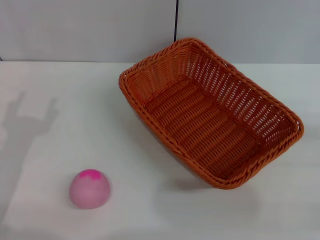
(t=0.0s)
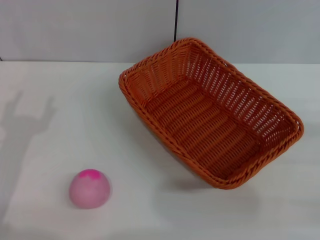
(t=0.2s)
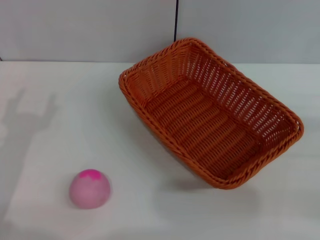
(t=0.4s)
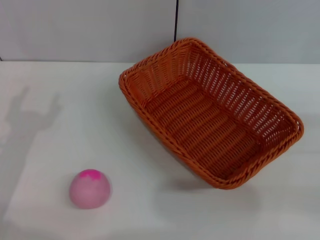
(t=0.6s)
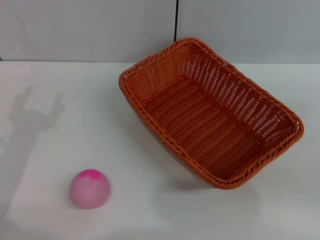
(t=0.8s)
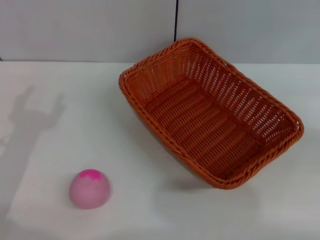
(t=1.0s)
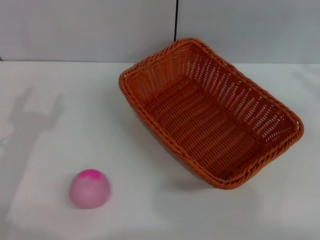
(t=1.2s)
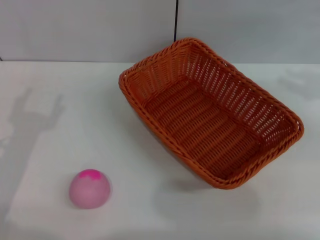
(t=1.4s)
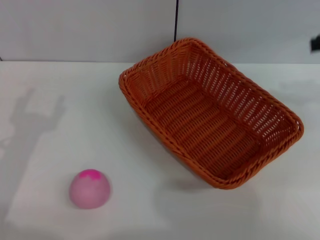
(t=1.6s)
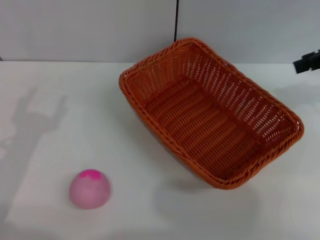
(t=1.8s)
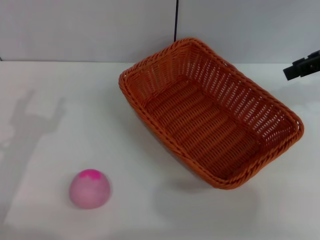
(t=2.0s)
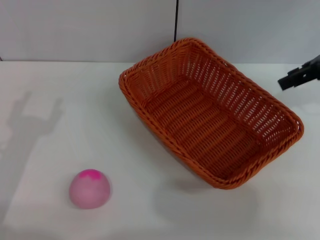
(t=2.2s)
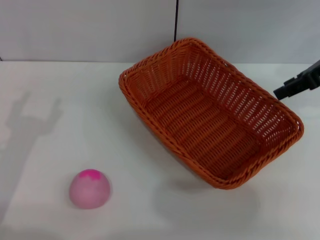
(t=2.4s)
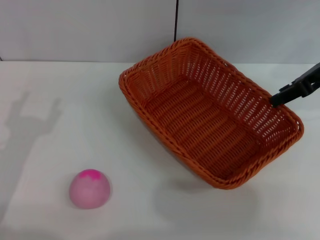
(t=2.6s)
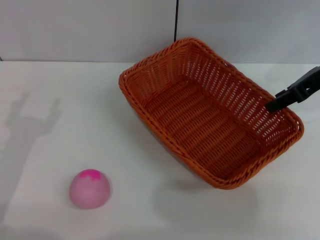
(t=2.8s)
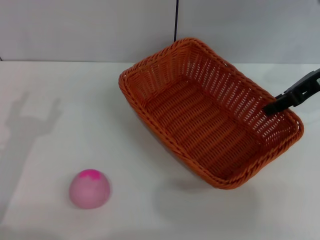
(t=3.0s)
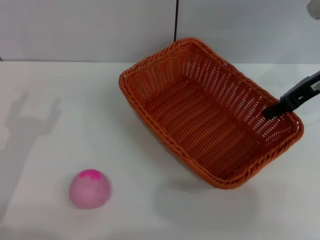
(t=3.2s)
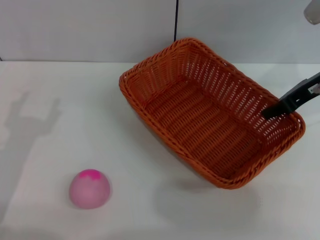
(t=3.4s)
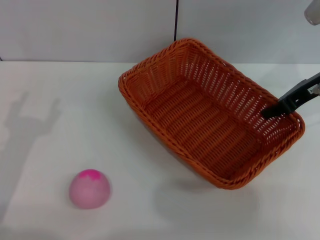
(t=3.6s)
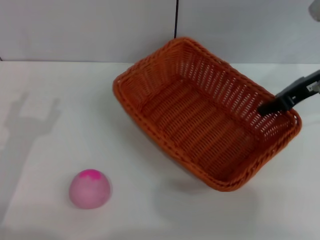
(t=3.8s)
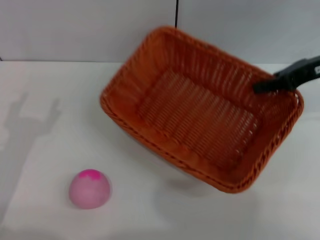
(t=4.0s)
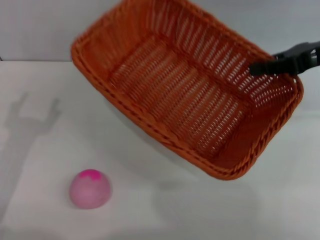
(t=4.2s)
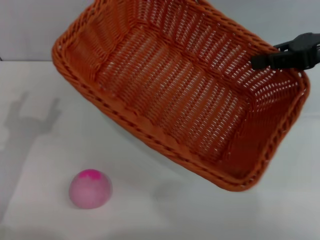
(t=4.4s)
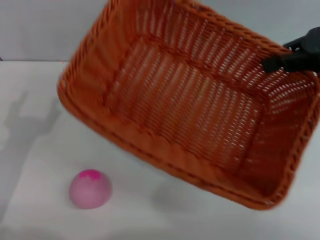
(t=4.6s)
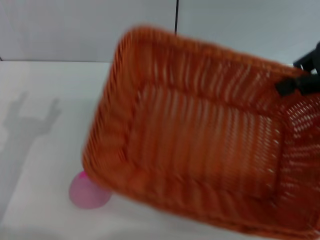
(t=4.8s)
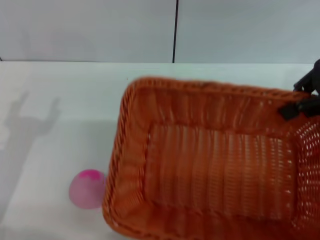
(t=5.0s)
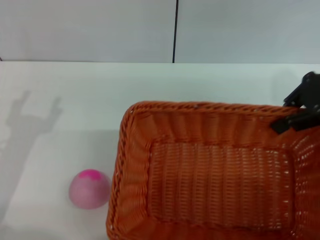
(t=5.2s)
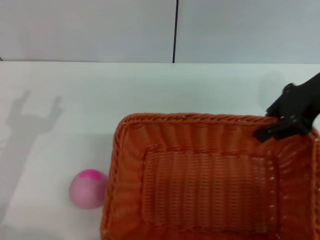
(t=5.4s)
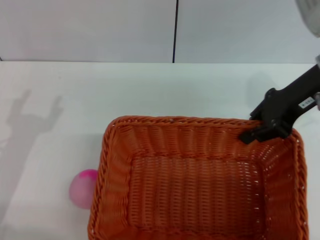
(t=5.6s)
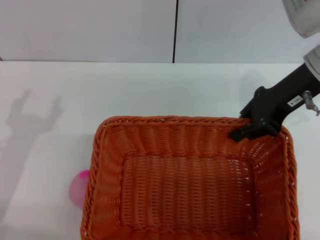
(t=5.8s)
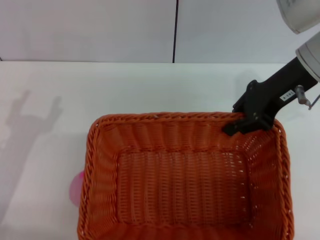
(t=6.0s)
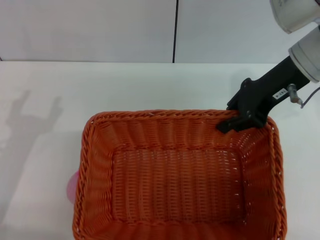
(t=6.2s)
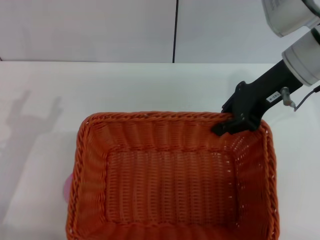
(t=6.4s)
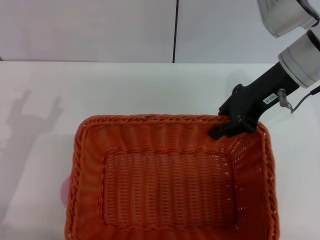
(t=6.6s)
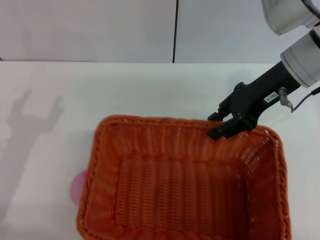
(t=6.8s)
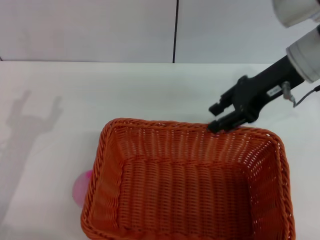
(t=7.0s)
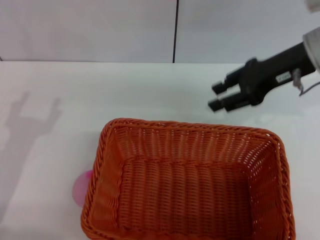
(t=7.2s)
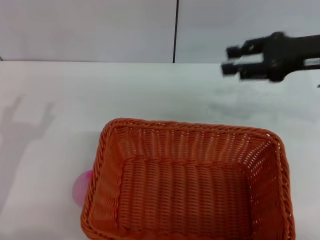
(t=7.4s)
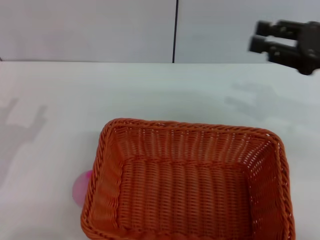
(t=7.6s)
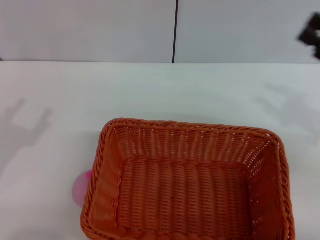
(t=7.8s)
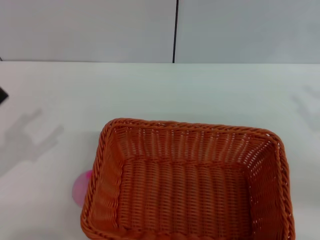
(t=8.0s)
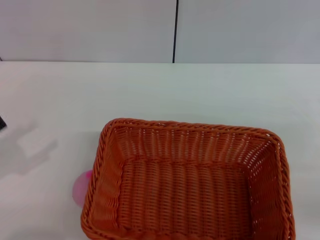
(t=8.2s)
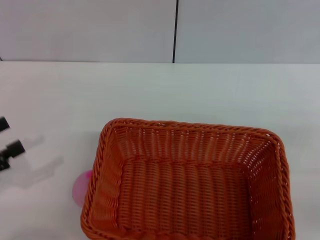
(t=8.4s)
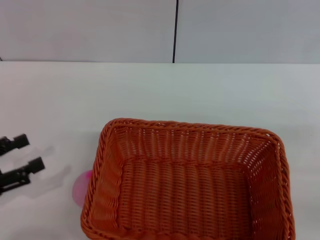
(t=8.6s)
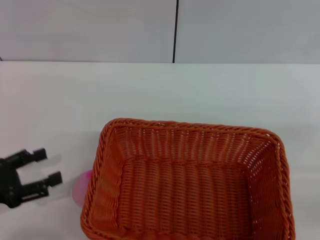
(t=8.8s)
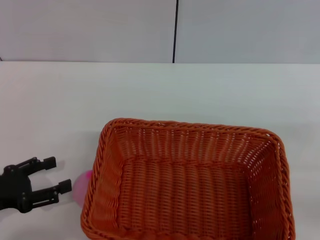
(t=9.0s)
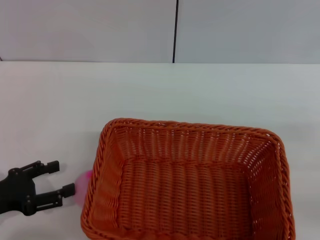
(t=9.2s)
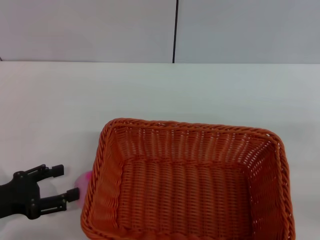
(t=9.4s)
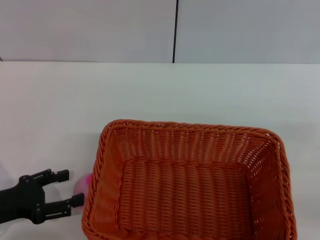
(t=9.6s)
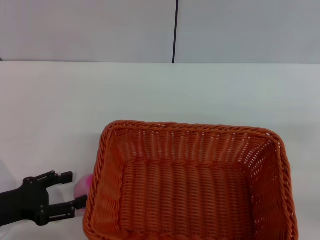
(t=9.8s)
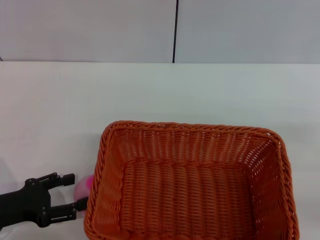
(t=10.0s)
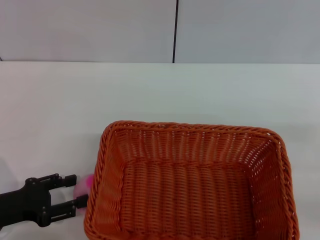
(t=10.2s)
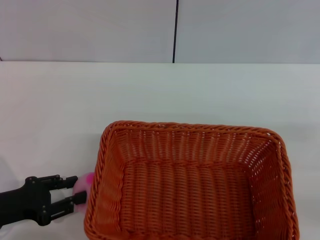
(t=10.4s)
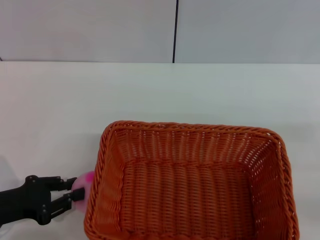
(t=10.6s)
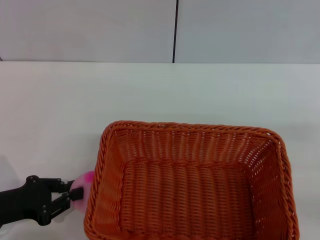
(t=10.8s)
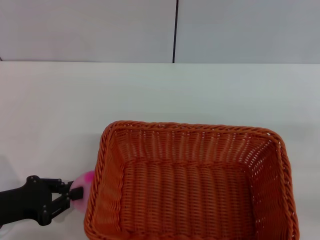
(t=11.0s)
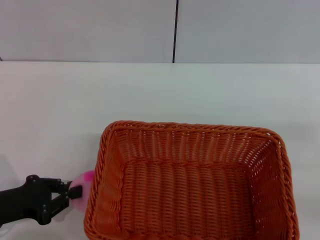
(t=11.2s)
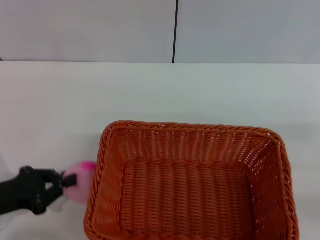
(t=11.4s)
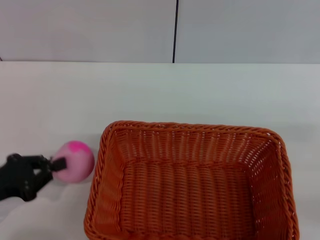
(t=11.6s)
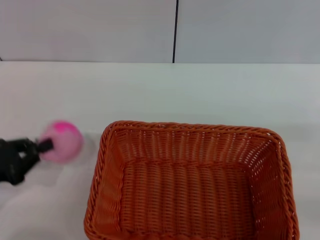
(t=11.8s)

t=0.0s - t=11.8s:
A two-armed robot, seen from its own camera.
Step, t=0.0s - t=3.8s: Pick up the light basket with the right gripper.
Step, t=4.0s - t=7.2s: Place the light basket in the center of view with the right gripper.
t=1.4s - t=3.0s: The right gripper goes approximately 15 cm to the left, forward and downward.
t=3.0s - t=4.4s: The right gripper shifts by roughly 5 cm, and closes up.
t=4.4s - t=6.0s: The right gripper moves to the left, roughly 10 cm.
t=6.0s - t=7.4s: The right gripper shifts some 5 cm to the right, and opens its fingers.
t=7.4s - t=8.8s: The right gripper heads backward, to the right and downward, covering approximately 20 cm. Meanwhile the left gripper shifts roughly 5 cm to the left.
t=8.8s - t=10.4s: The grippers make only small movements.
t=10.4s - t=11.8s: The left gripper closes its fingers.

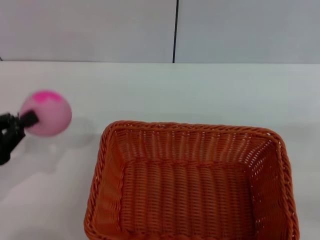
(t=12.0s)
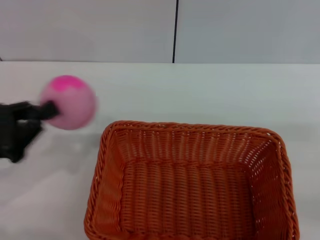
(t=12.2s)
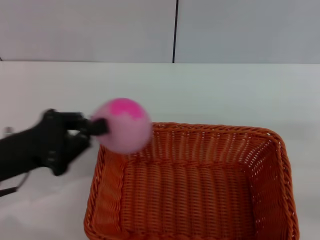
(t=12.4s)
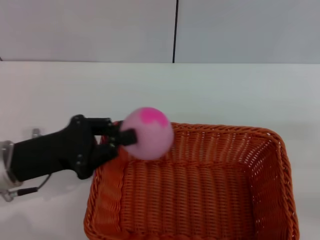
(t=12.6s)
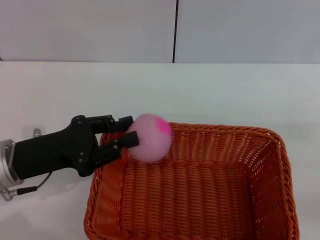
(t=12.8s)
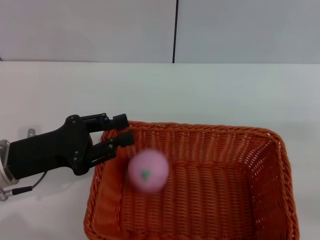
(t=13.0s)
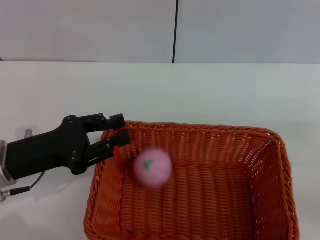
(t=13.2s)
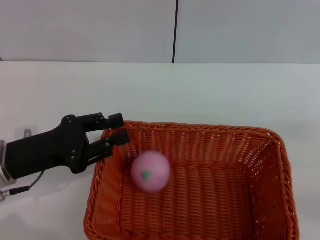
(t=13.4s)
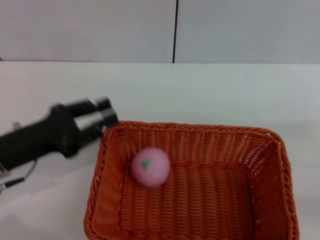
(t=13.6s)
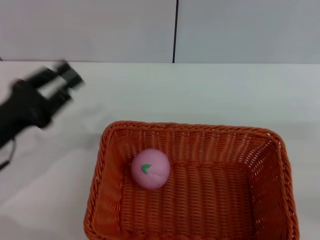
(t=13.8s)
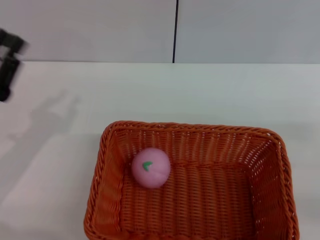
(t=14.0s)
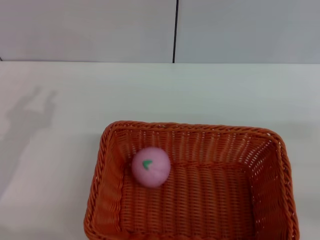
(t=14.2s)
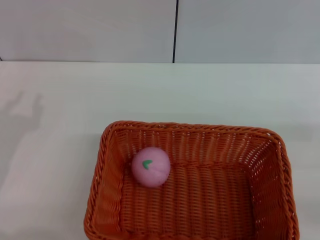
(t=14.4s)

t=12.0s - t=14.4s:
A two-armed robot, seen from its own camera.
Step, t=12.2s - t=13.4s: Place the peach into the basket with the left gripper.
t=12.0s - t=13.2s: The left gripper travels to the right by about 10 cm, and opens.
t=13.2s - t=14.4s: The left gripper is displaced to the left by some 5 cm.

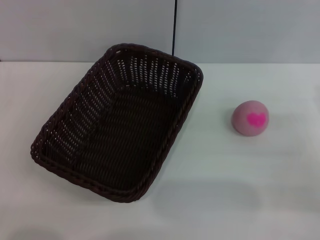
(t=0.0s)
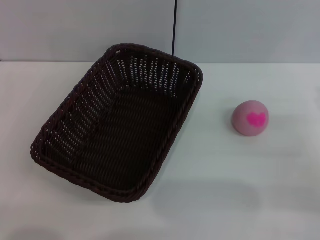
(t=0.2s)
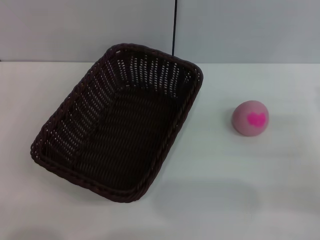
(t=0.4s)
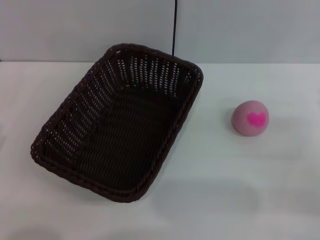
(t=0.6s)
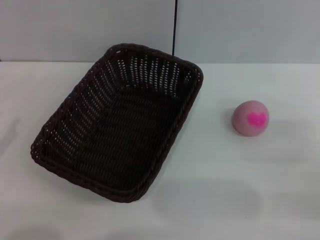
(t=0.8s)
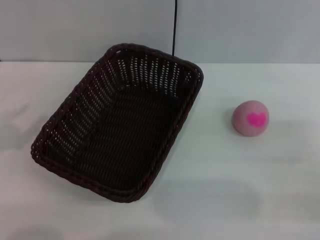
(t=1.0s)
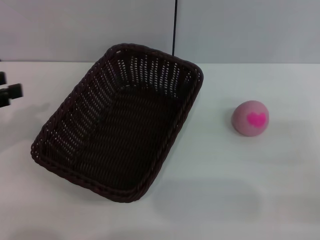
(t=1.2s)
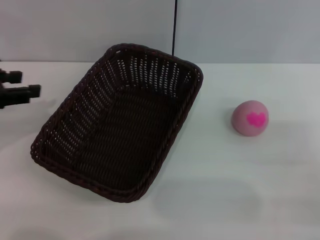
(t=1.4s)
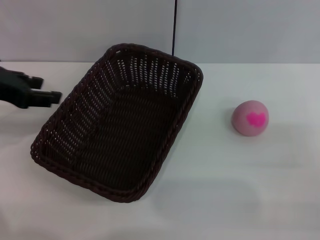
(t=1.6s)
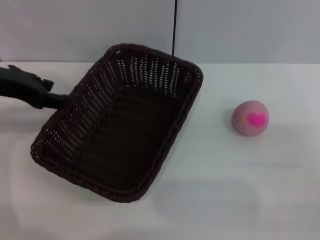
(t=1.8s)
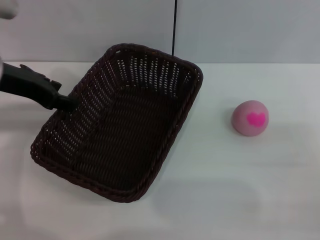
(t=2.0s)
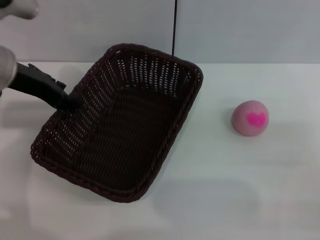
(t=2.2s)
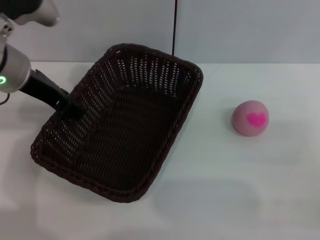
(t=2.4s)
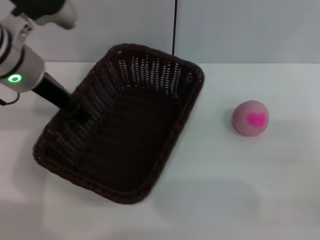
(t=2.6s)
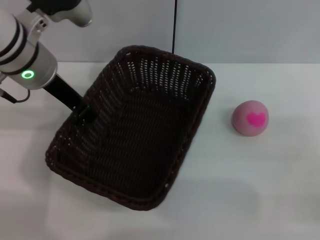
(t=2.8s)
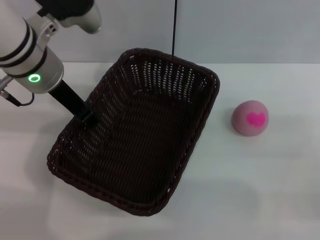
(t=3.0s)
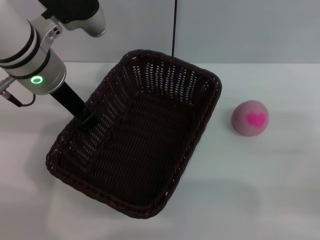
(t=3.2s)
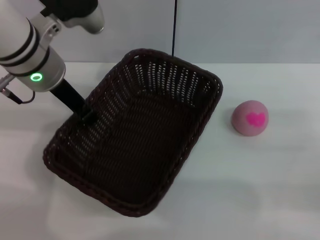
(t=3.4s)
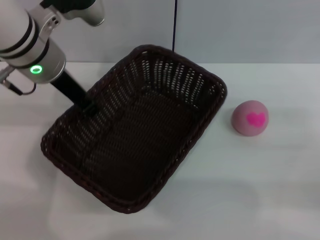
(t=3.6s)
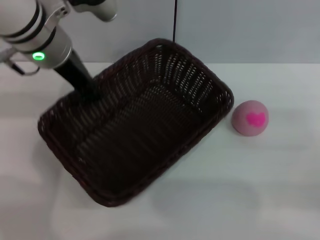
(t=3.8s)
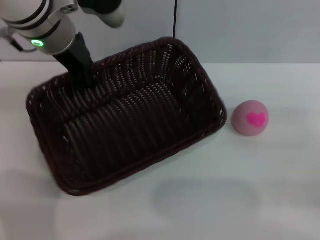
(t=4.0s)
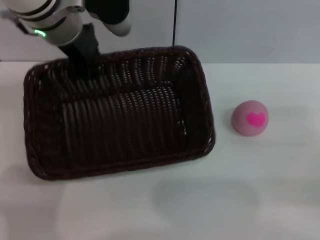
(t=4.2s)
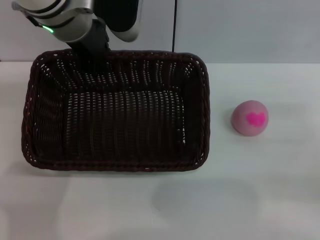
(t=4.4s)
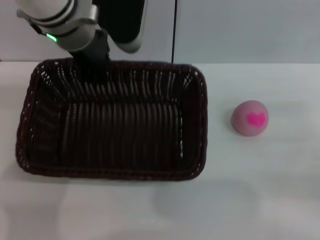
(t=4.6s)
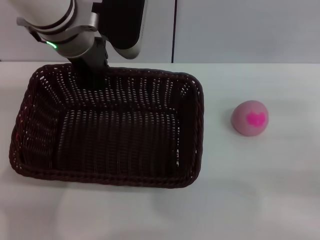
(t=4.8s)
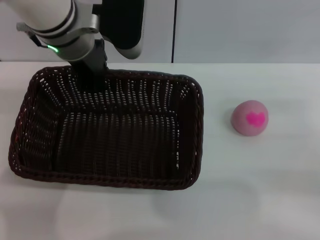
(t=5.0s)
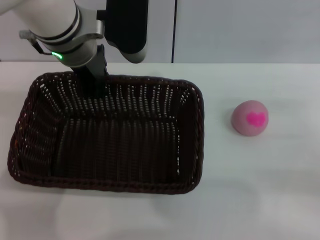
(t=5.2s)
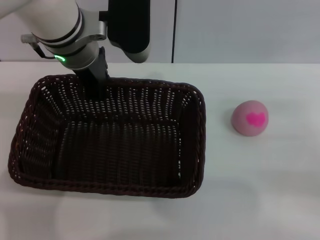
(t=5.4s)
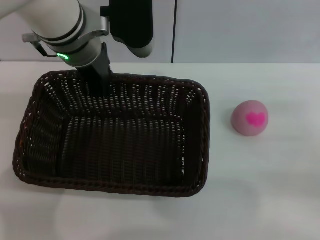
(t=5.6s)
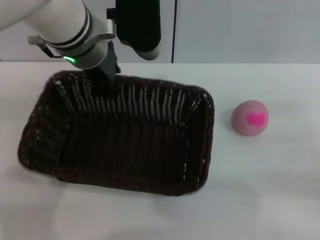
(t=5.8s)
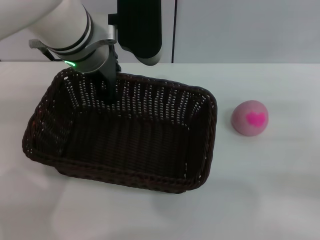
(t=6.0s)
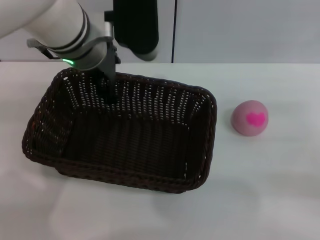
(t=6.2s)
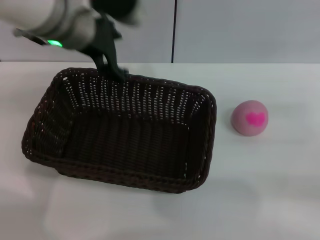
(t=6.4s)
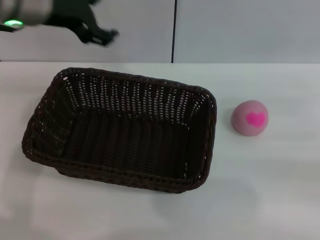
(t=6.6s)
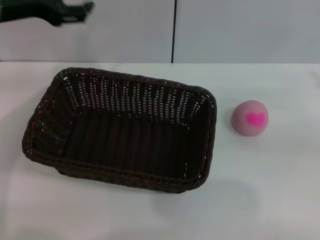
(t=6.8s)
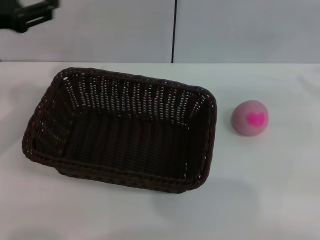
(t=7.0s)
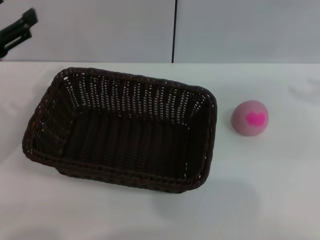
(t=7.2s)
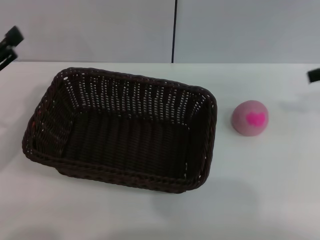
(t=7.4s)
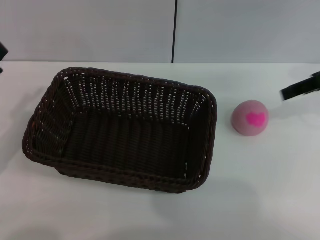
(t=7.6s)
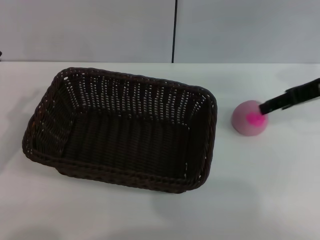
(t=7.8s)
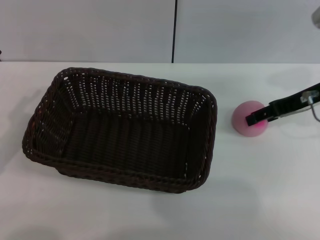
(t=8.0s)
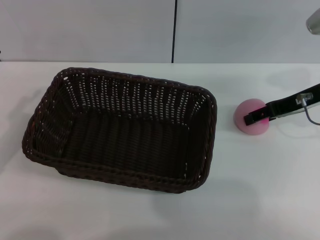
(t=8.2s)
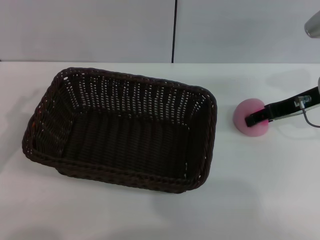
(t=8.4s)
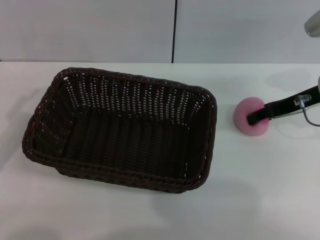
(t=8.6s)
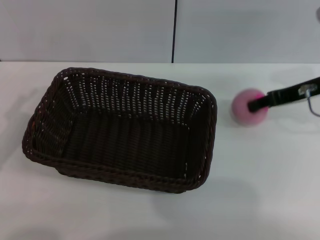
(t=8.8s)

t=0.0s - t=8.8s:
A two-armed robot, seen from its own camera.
Step, t=0.0s - t=3.8s: Pick up the dark basket with the left gripper.
Step, t=4.0s - t=6.4s: Place the dark basket in the center of view with the right gripper.
t=0.0s - t=1.4s: The left gripper shifts roughly 20 cm upward and forward.
t=1.4s - t=3.0s: The left gripper goes roughly 15 cm to the right and forward.
t=3.0s - t=4.4s: The left gripper shifts by roughly 5 cm, and closes.
t=5.8s - t=7.4s: The right gripper shifts roughly 20 cm upward and forward, while the left gripper travels to the left and backward by approximately 25 cm, and opens its fingers.
t=7.4s - t=8.8s: The right gripper goes roughly 10 cm downward and to the left, and closes up.
